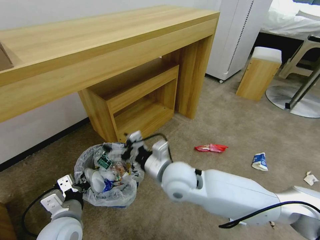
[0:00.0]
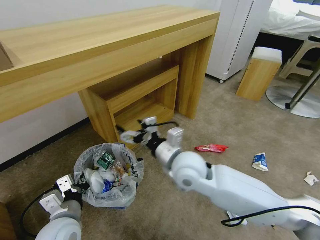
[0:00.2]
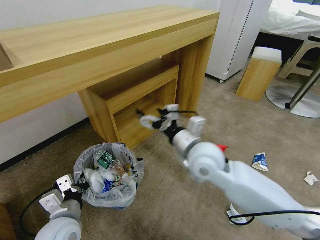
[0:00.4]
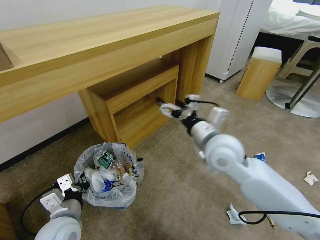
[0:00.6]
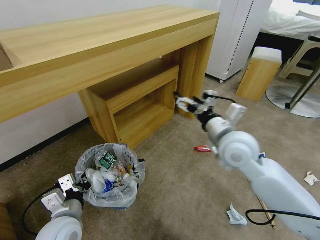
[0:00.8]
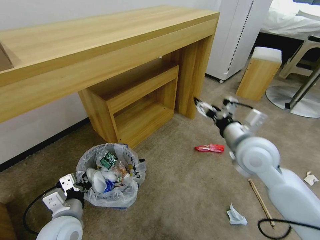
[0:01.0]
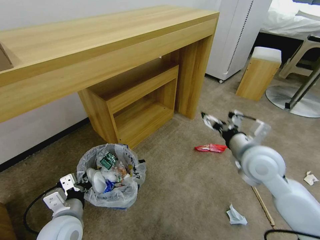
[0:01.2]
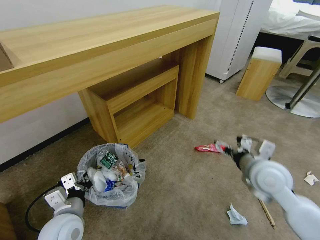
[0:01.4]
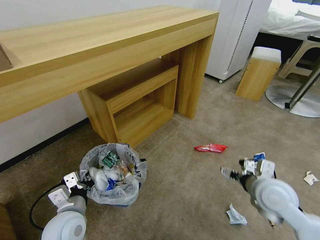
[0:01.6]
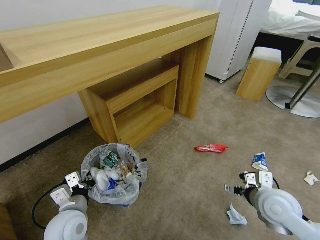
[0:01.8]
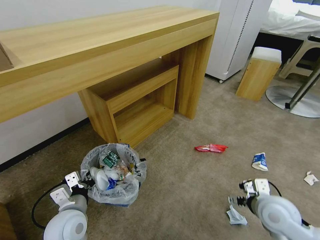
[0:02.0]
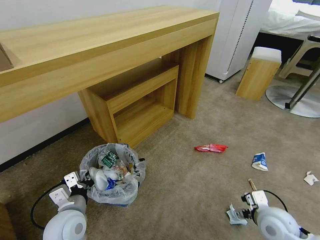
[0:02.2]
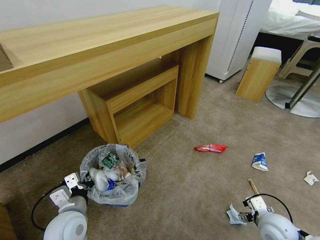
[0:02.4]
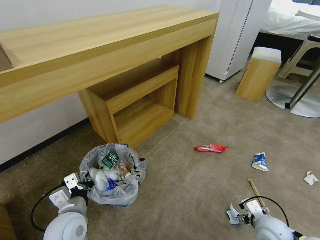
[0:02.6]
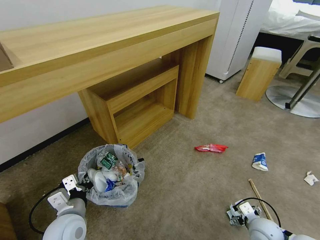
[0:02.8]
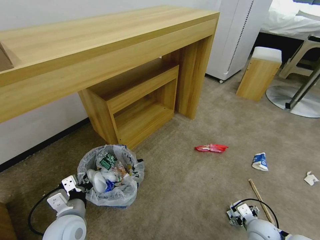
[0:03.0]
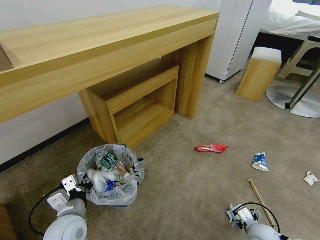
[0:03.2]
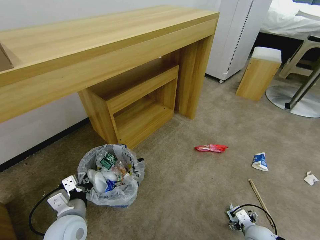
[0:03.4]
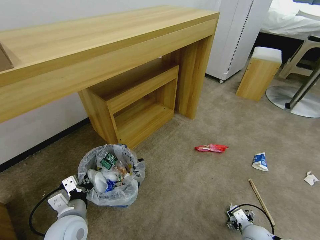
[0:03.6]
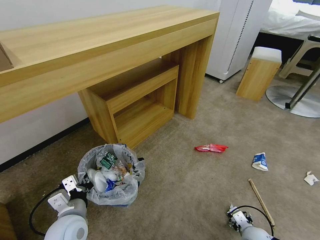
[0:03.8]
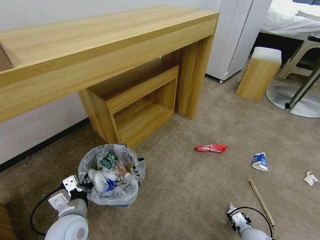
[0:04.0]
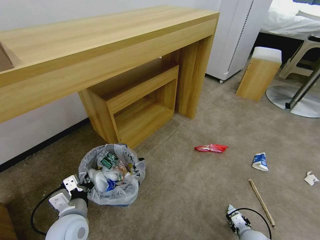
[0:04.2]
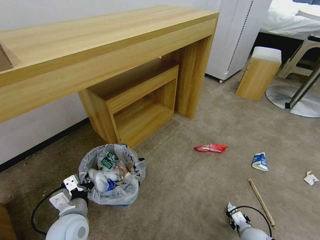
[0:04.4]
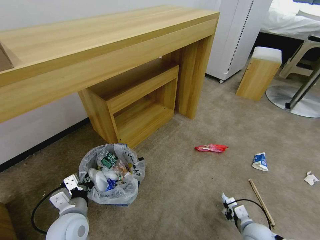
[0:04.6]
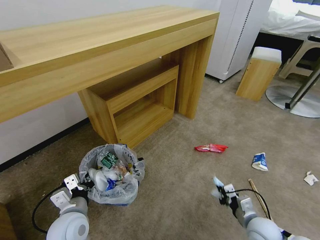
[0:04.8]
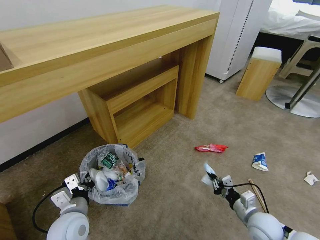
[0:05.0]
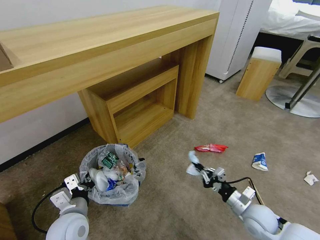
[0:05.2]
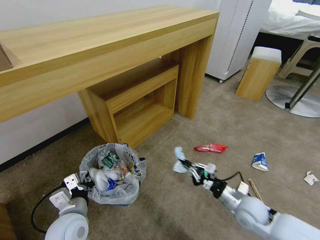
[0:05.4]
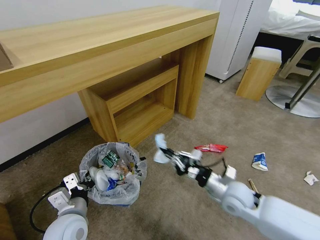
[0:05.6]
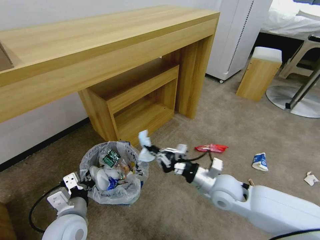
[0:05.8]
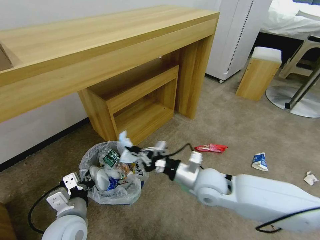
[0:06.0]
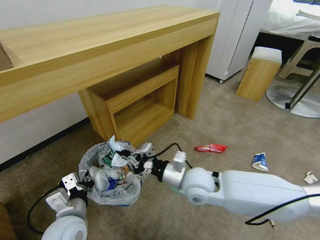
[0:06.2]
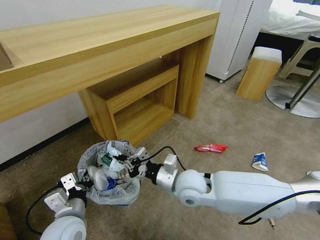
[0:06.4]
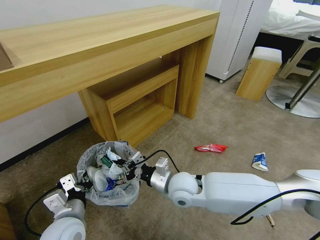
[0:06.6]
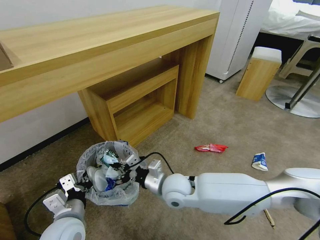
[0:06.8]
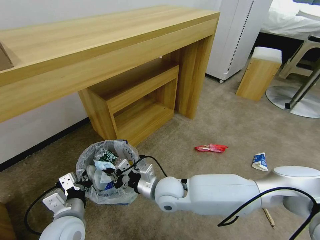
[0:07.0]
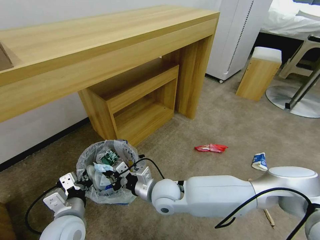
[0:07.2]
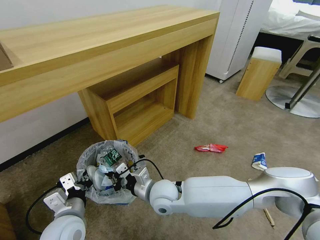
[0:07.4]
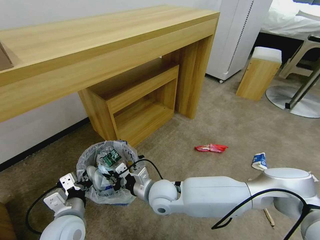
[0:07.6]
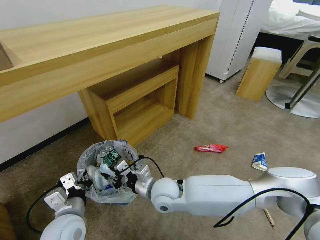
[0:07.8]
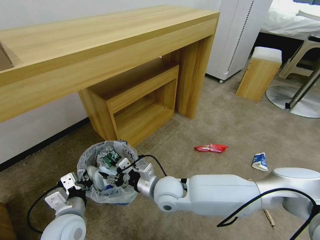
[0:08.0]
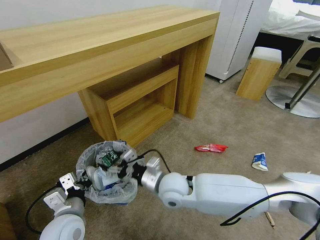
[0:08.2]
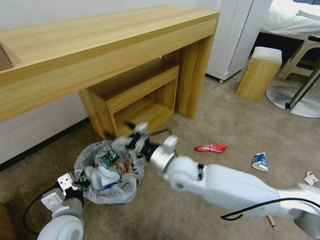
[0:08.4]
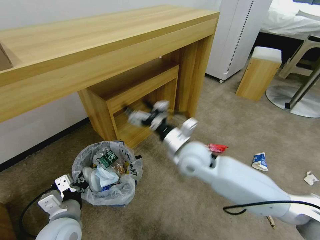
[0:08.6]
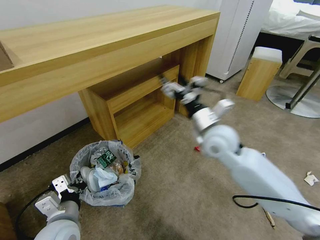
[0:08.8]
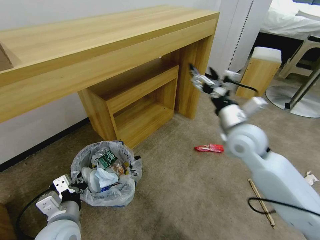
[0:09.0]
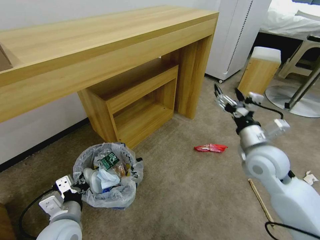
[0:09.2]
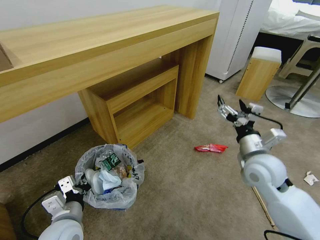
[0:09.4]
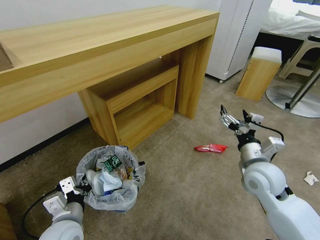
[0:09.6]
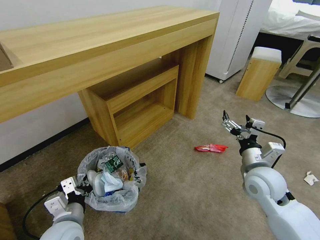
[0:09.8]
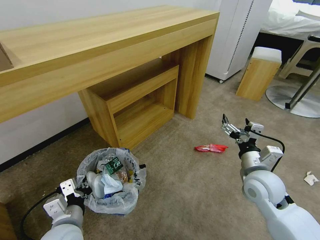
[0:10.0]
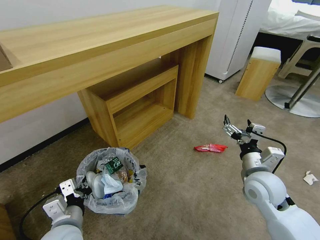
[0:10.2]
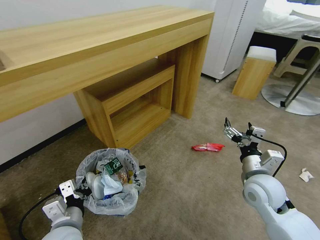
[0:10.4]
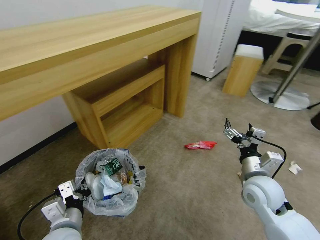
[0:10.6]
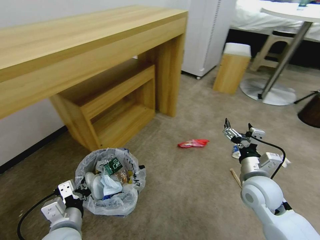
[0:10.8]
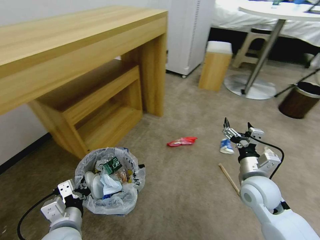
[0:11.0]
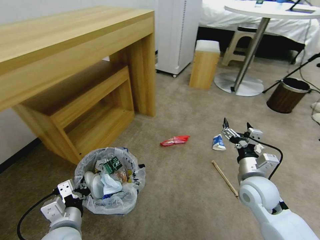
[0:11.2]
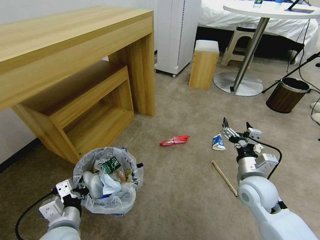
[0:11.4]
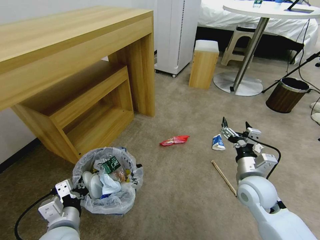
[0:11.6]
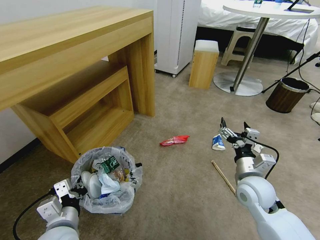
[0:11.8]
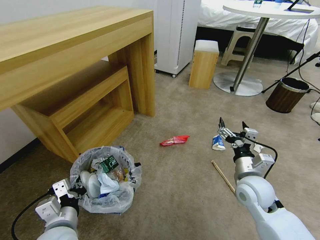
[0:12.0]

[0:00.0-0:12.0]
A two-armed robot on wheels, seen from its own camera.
Task of the whole recording: Pick up the trash bin and place the garbage on the floor into it.
0:00.0 to 0:01.6: The right gripper goes some 25 cm to the right.
0:01.6 to 0:03.0: The right gripper is displaced downward by roughly 20 cm.
0:03.0 to 0:04.4: The right gripper moves downward, roughly 5 cm, and closes up.
0:04.4 to 0:06.0: The right gripper goes some 35 cm upward, to the left and forward.
0:06.0 to 0:07.6: The right gripper moves to the left and downward, roughly 15 cm.
0:07.6 to 0:09.0: The right gripper goes some 30 cm to the right and upward, and opens up.
0:09.0 to 0:10.4: The right gripper heads downward, backward and to the right, covering roughly 15 cm.

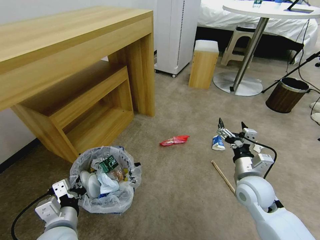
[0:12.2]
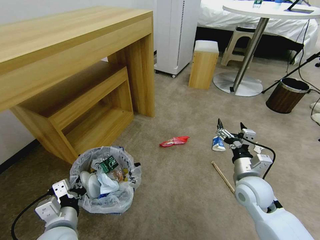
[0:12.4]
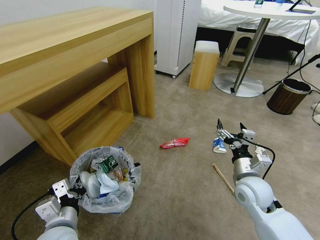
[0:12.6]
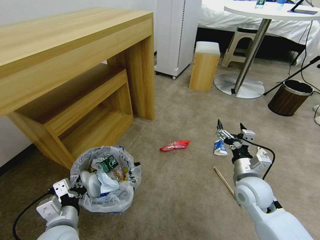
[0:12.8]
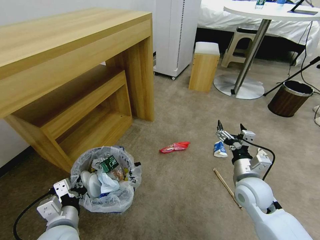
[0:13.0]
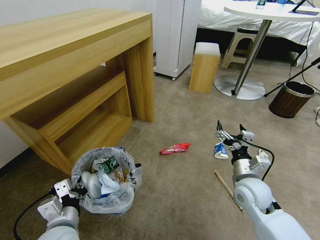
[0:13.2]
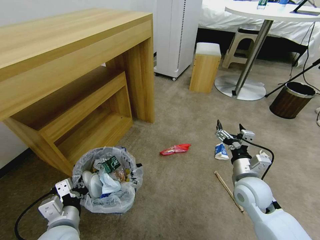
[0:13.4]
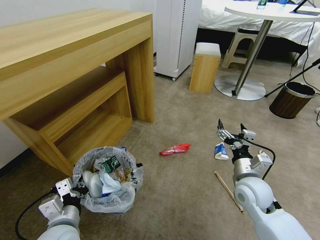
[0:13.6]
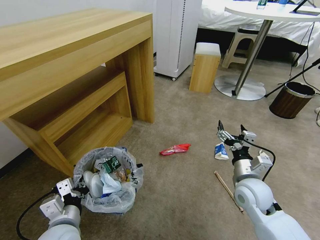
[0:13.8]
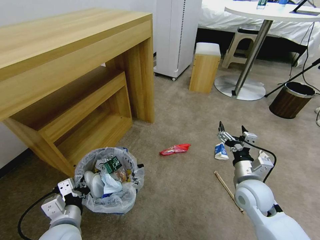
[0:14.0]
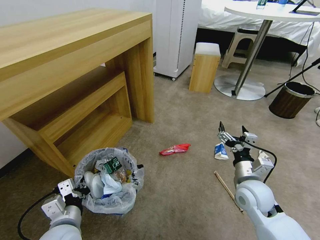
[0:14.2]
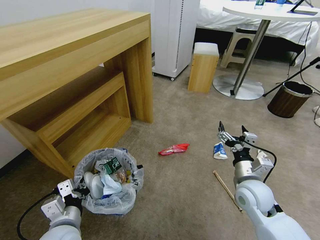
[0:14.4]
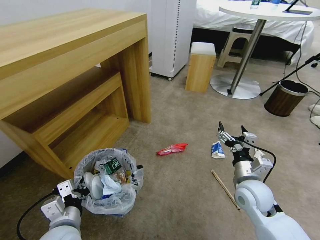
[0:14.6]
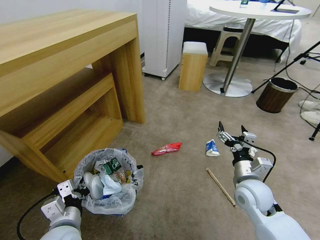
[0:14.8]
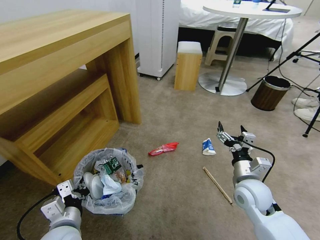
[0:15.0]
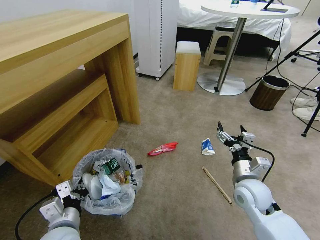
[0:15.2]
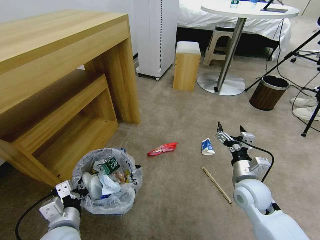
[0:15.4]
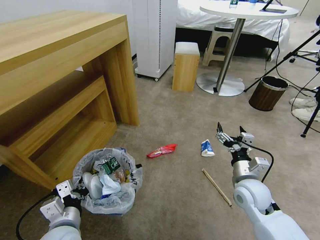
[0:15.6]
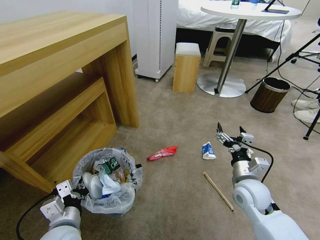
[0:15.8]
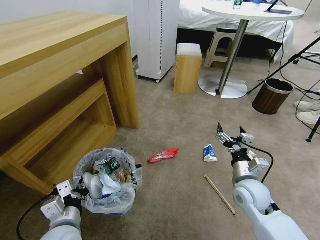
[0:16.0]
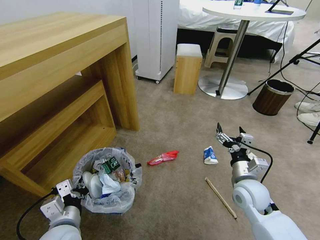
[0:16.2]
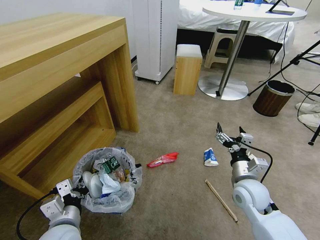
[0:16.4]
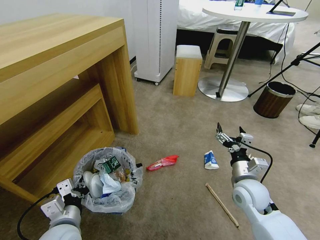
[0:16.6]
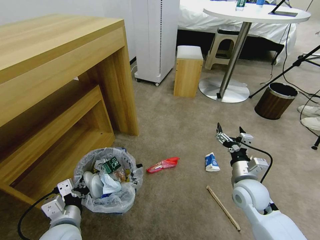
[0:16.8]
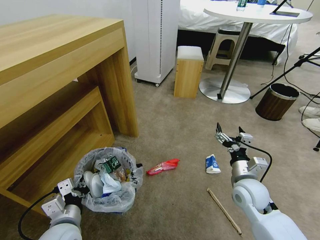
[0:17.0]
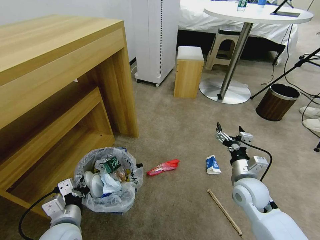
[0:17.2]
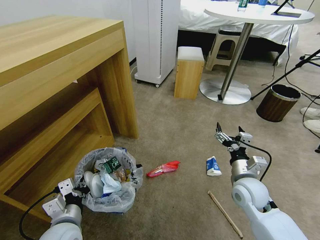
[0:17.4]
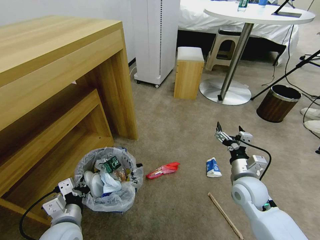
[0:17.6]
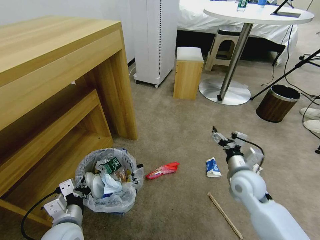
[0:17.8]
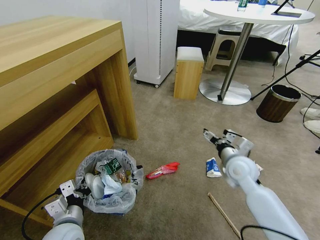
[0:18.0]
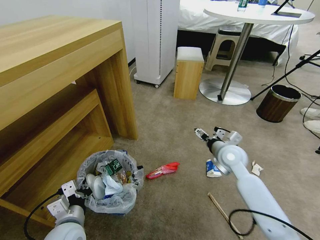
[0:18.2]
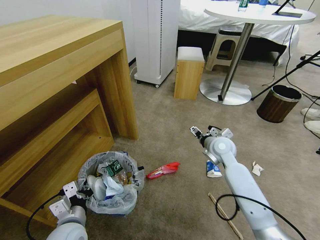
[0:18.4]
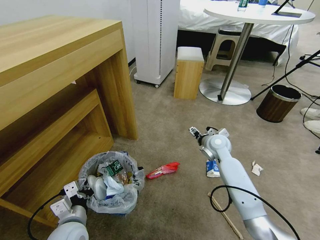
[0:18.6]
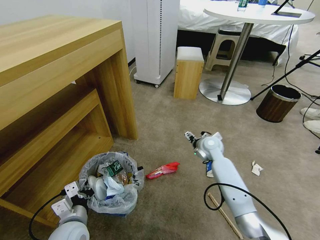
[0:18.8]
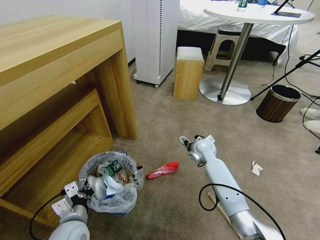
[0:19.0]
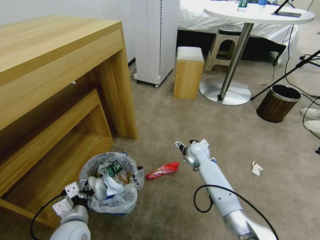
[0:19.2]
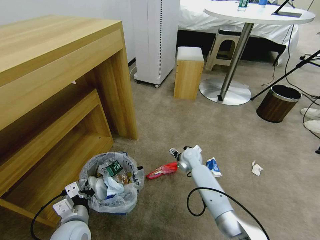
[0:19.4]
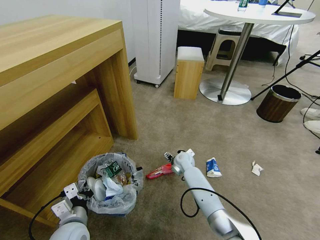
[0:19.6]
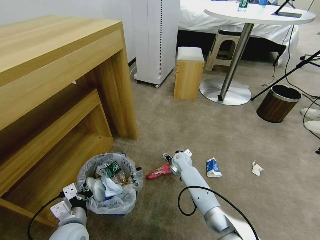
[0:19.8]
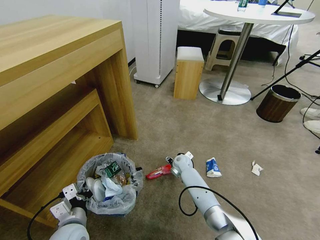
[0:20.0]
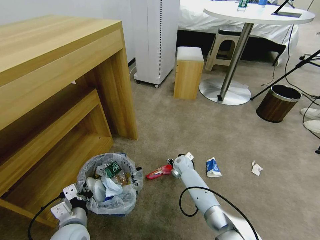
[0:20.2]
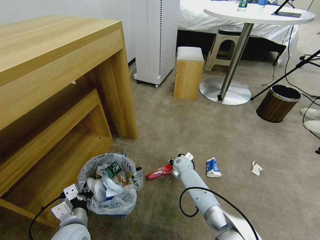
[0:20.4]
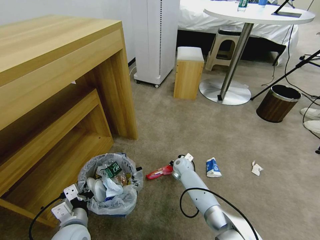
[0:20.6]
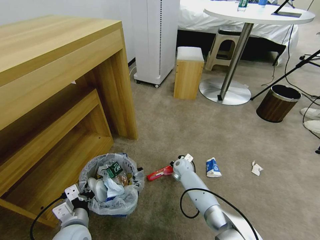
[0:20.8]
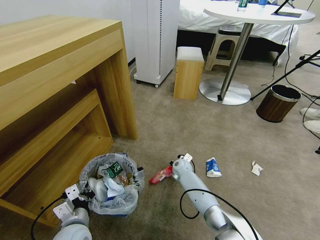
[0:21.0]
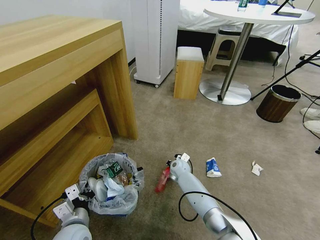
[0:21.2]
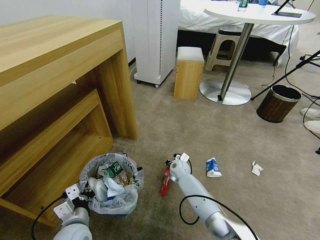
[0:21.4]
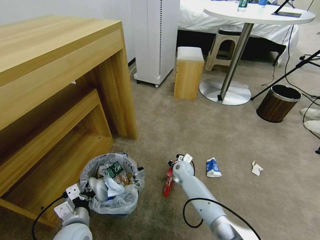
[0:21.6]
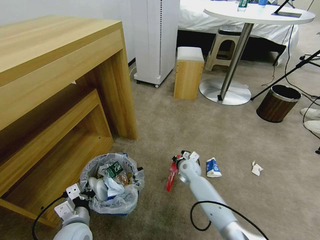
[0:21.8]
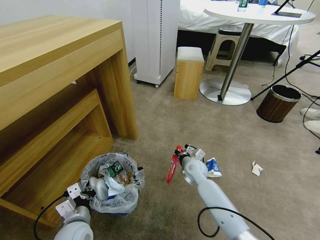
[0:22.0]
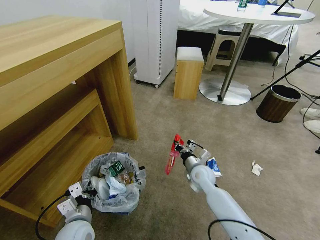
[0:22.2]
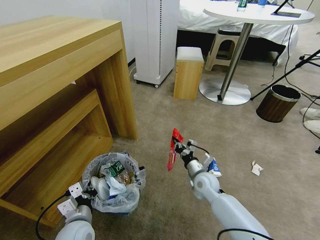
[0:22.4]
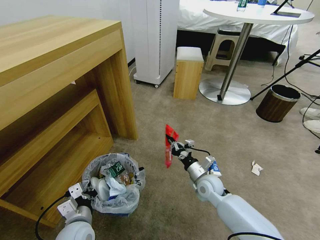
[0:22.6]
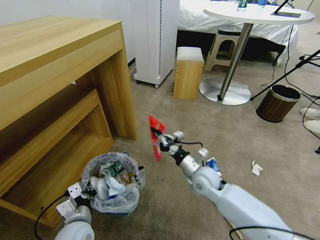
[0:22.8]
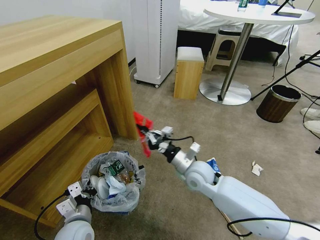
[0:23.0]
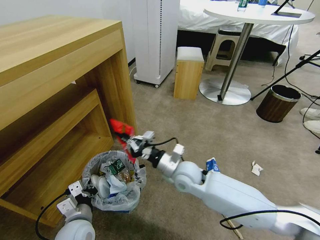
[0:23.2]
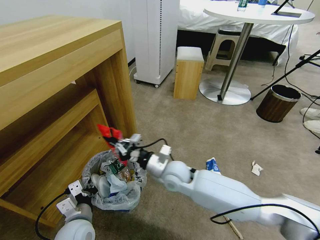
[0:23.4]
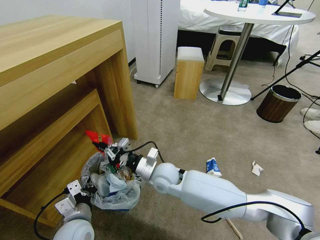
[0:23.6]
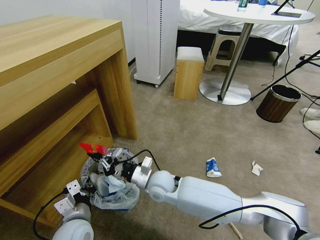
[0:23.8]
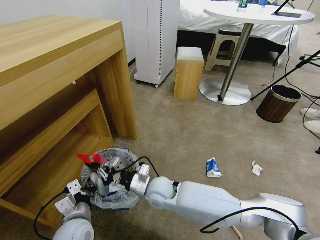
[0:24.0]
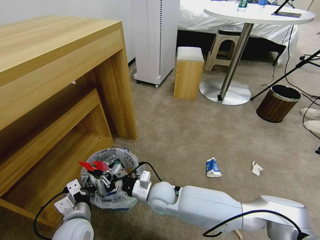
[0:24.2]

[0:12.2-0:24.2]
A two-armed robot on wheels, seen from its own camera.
Task of the whole recording: Pick up the trash bin and place the garbage on the floor into it.
0:16.6 to 0:18.2: The right gripper moves forward, some 10 cm.
0:18.2 to 0:19.8: The right gripper travels downward, to the left and forward by approximately 25 cm.
0:19.8 to 0:21.2: The right gripper closes its fingers.
0:21.2 to 0:22.6: The right gripper moves backward, to the right and upward, some 15 cm.
0:22.6 to 0:24.2: The right gripper is displaced to the left by some 20 cm.
